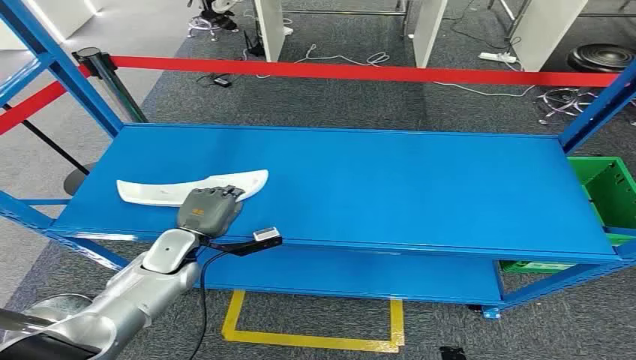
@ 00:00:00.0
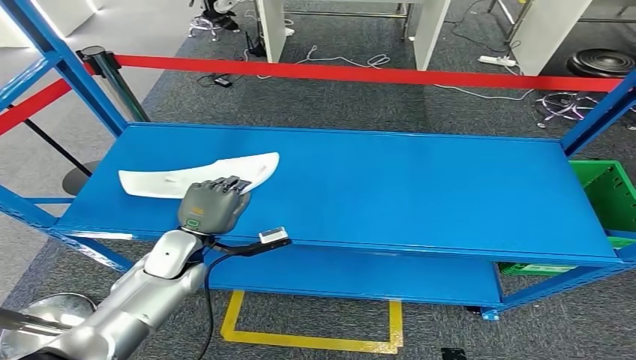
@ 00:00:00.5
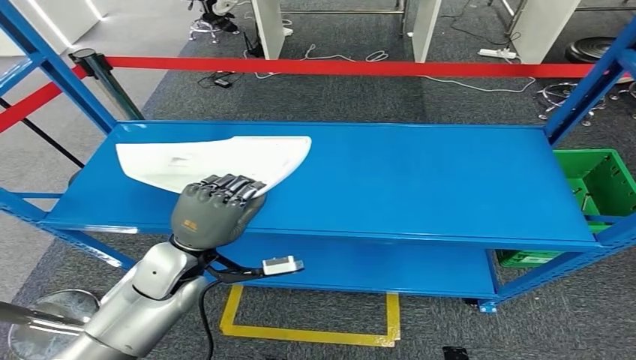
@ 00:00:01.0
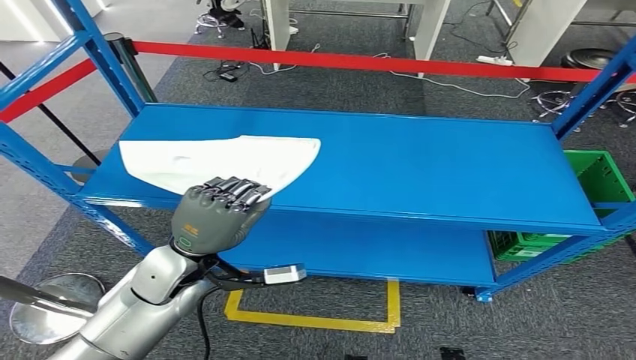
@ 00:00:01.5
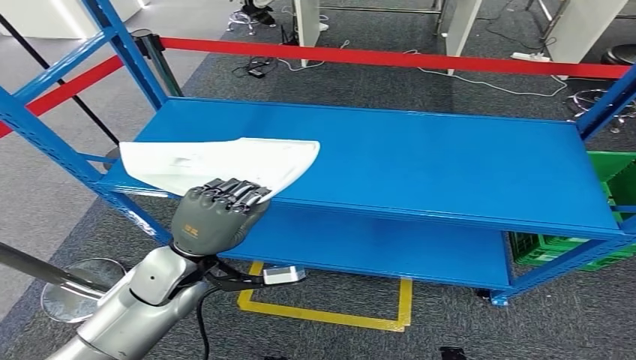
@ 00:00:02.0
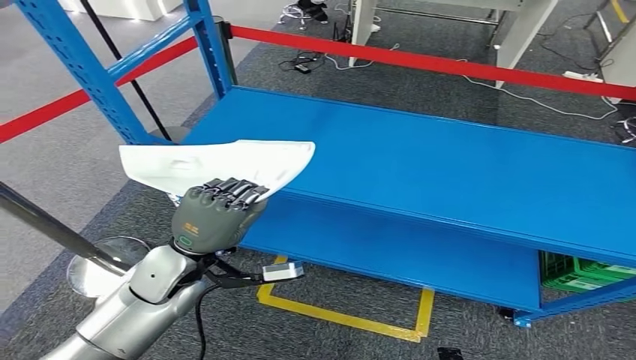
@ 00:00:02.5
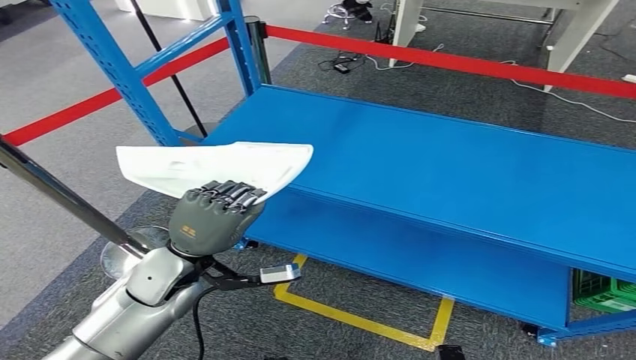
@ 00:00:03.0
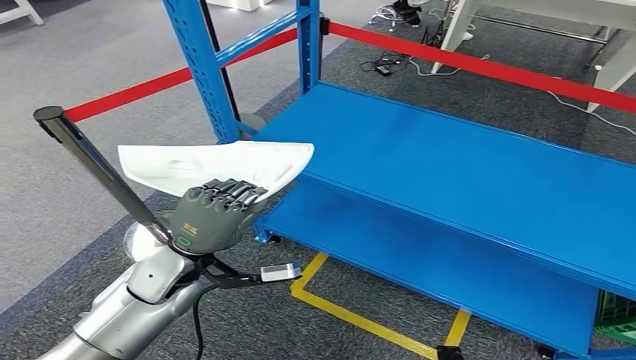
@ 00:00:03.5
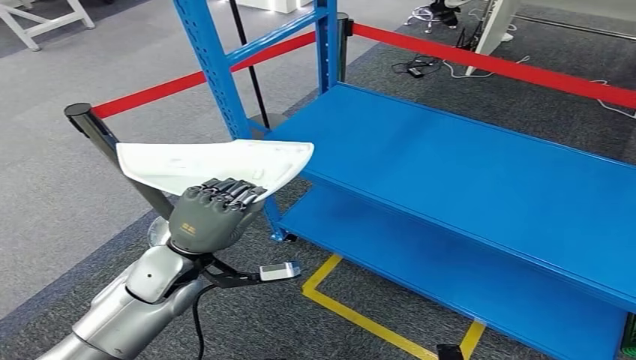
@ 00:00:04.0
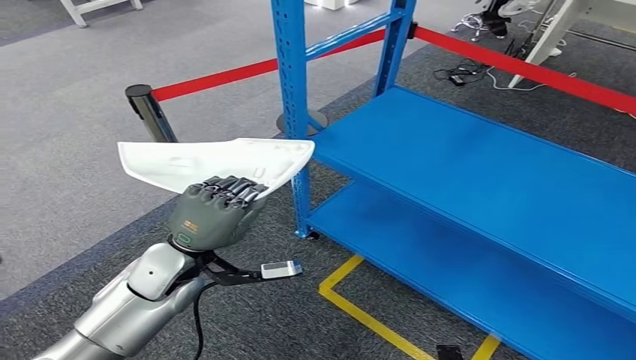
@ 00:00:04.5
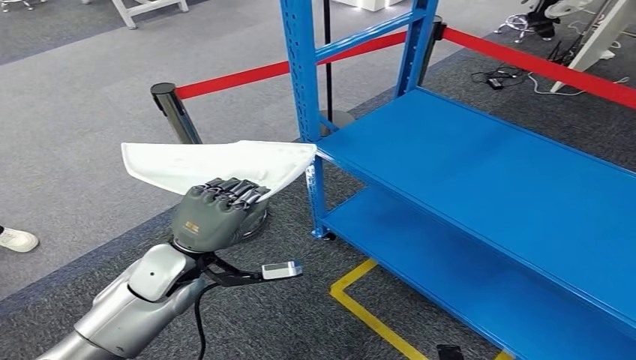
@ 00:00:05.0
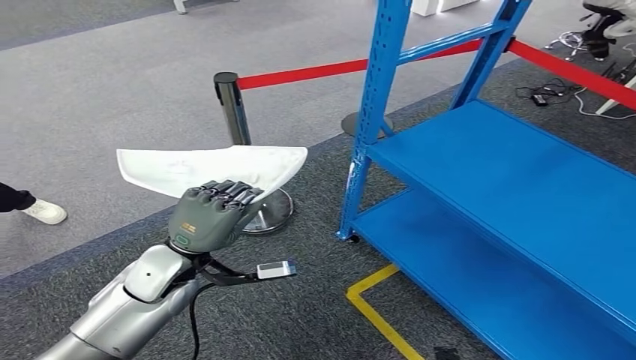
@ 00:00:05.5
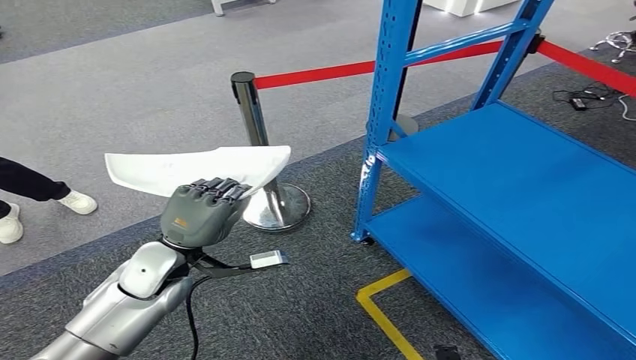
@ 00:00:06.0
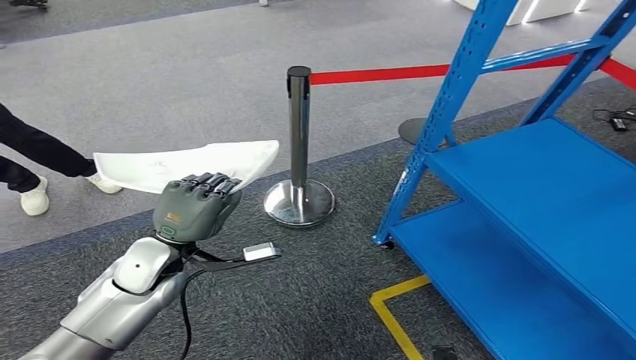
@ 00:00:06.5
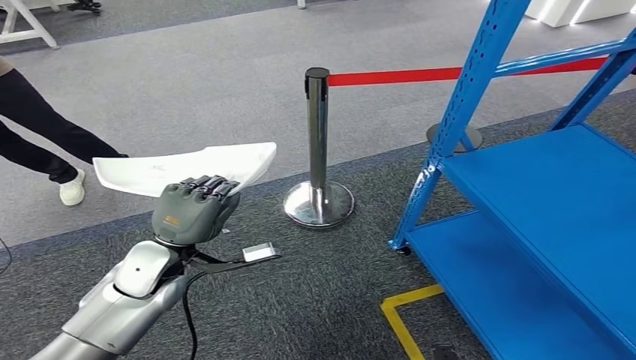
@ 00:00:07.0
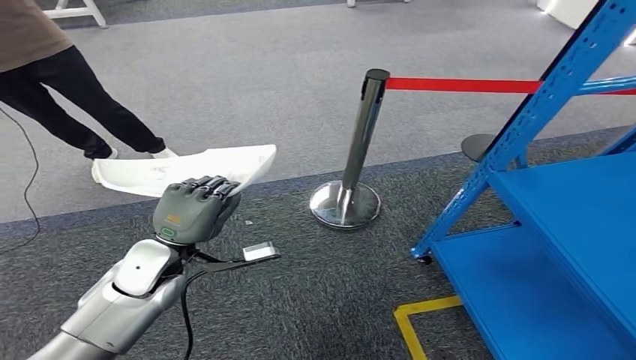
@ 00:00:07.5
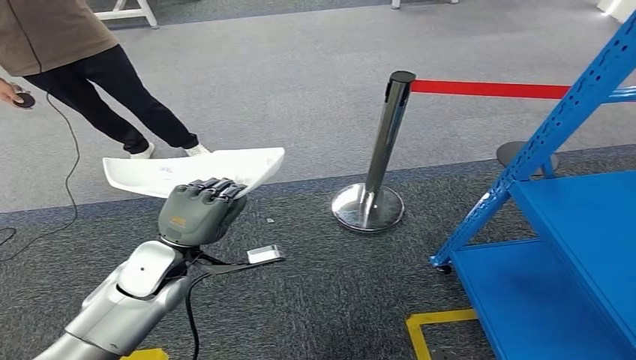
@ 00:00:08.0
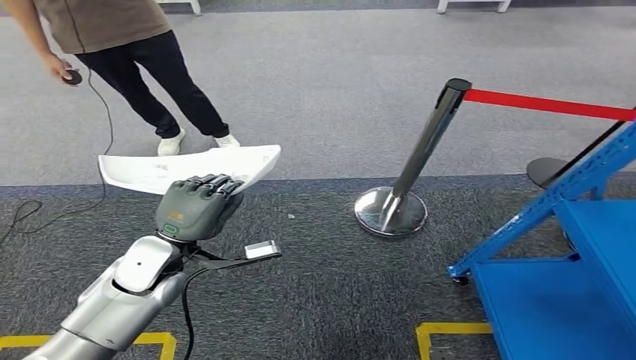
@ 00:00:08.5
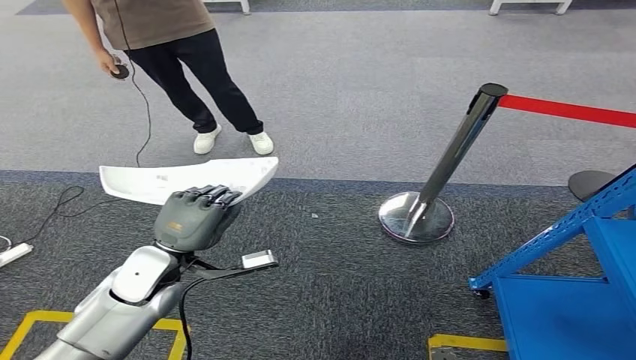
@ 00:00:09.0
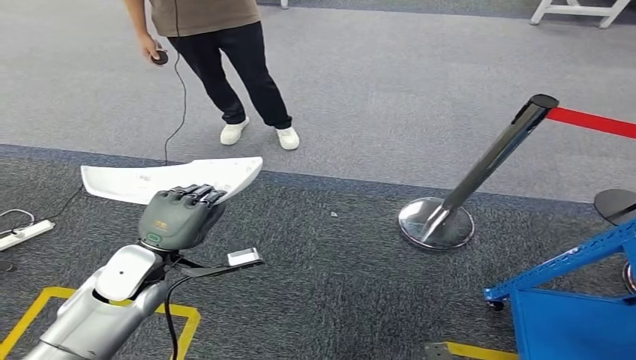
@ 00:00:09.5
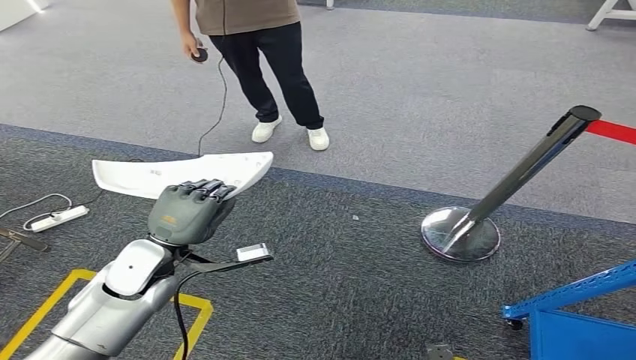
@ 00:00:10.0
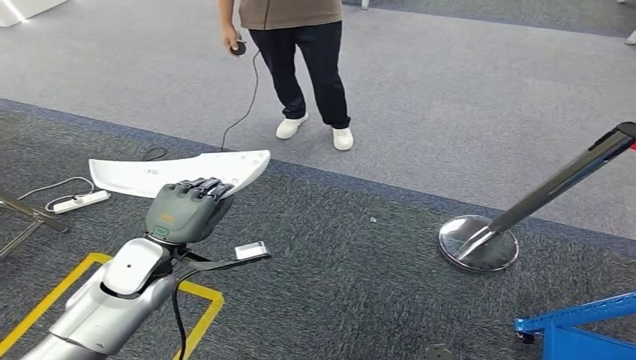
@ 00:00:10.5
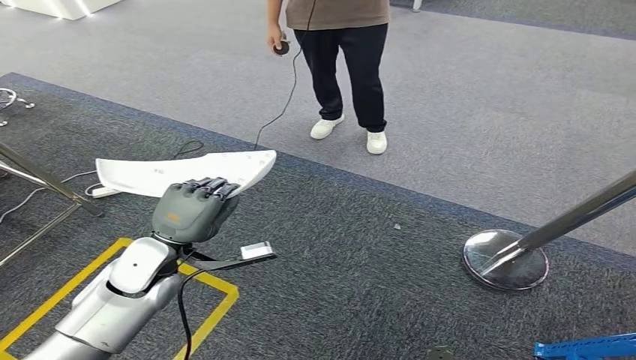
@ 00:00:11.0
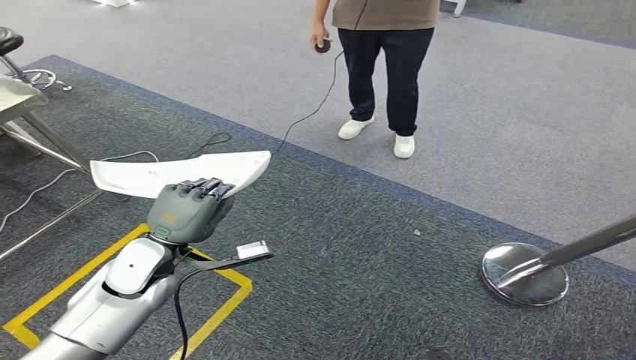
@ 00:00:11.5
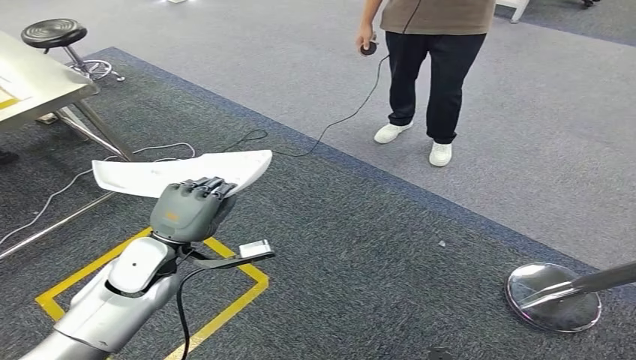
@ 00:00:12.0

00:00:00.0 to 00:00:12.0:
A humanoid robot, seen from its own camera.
Step, 00:00:00.0 to 00:00:04.5: Pick up the small component from the shelf.

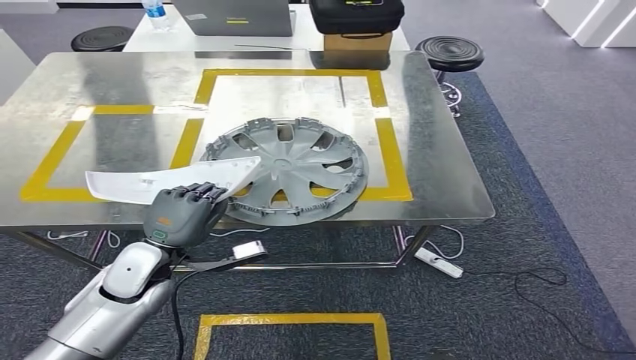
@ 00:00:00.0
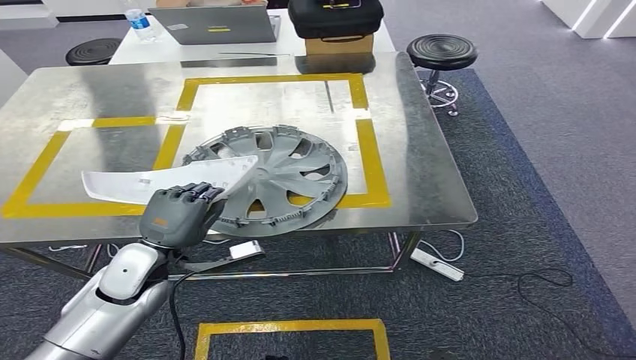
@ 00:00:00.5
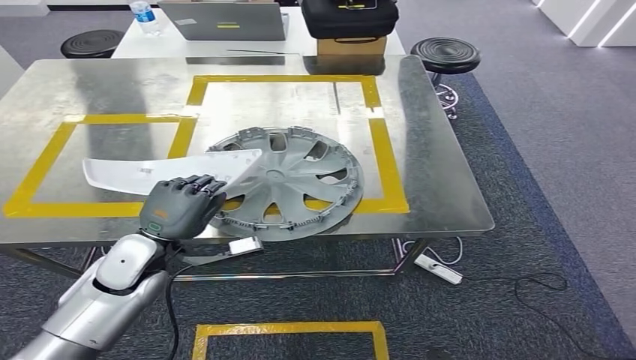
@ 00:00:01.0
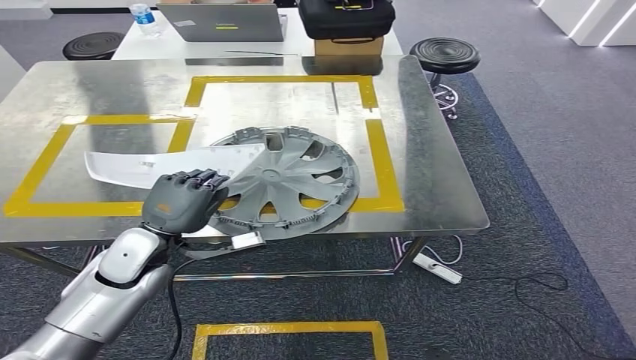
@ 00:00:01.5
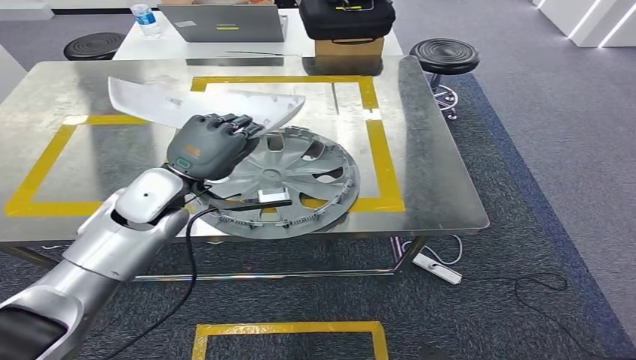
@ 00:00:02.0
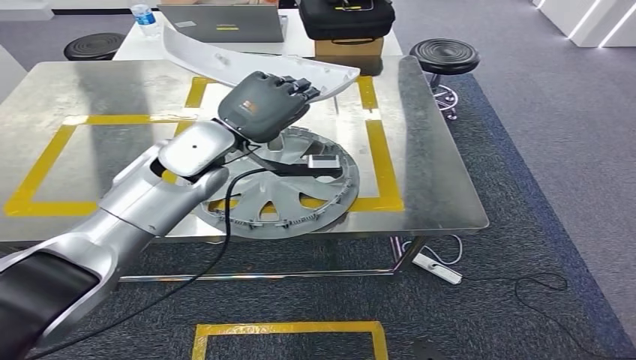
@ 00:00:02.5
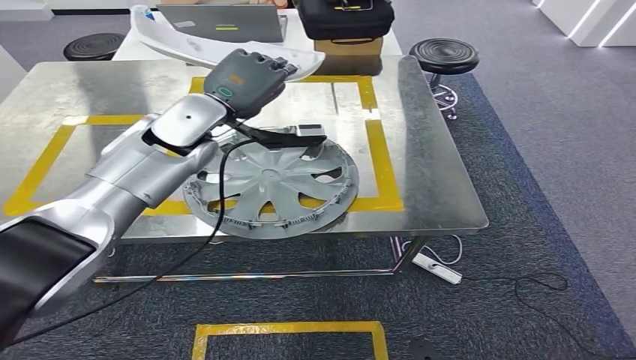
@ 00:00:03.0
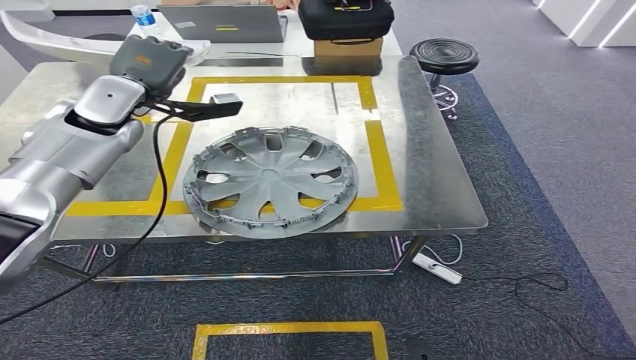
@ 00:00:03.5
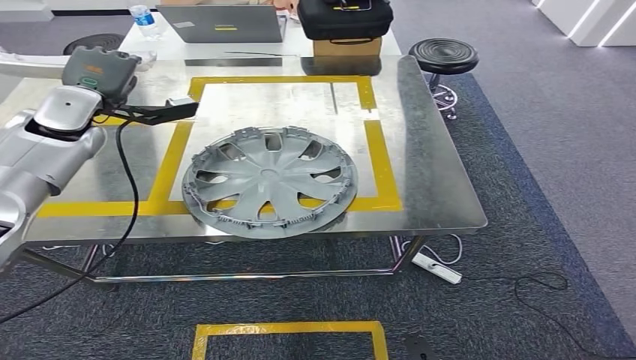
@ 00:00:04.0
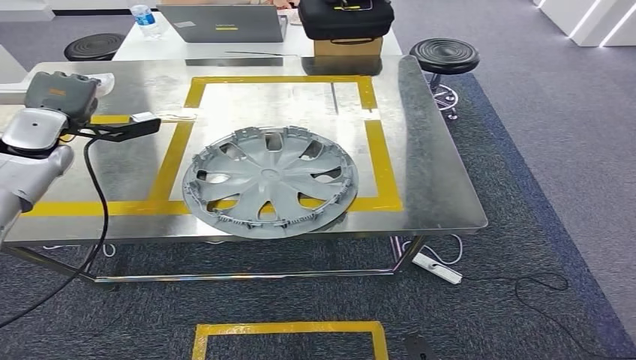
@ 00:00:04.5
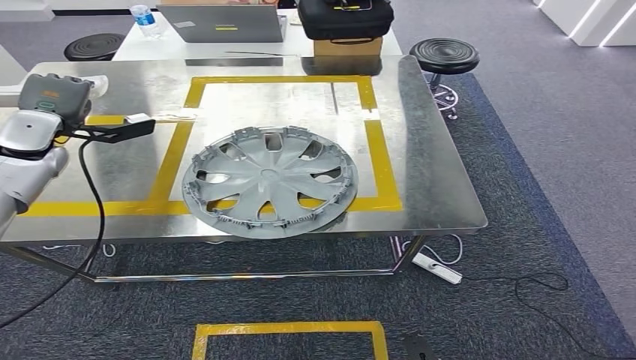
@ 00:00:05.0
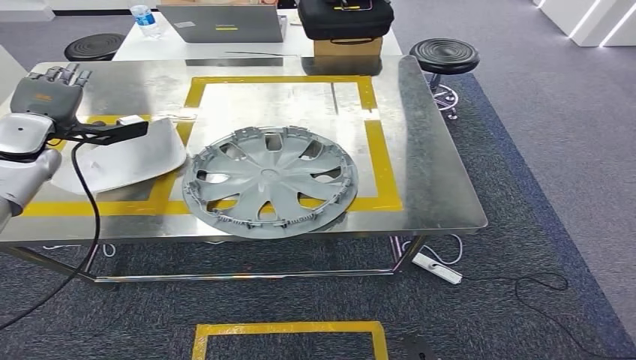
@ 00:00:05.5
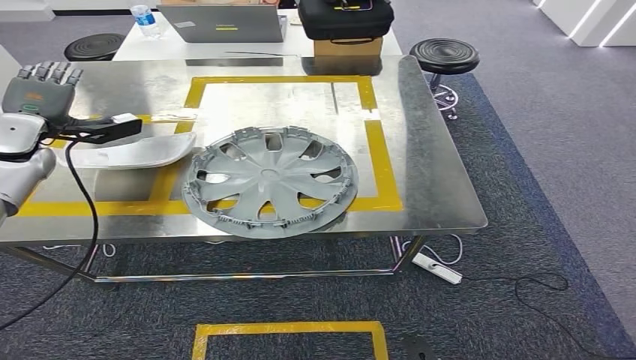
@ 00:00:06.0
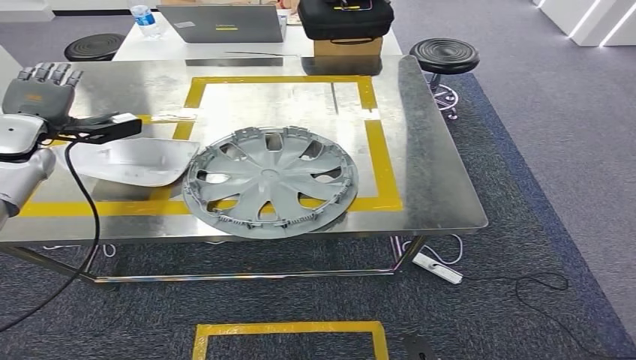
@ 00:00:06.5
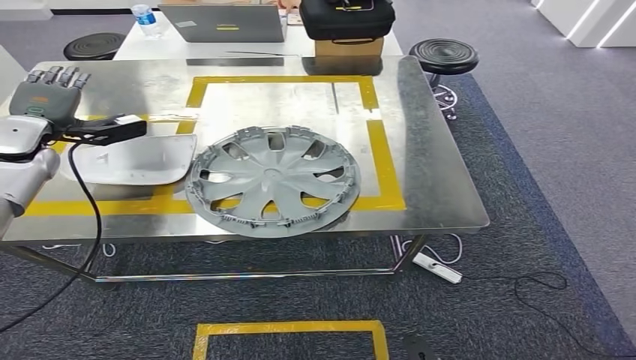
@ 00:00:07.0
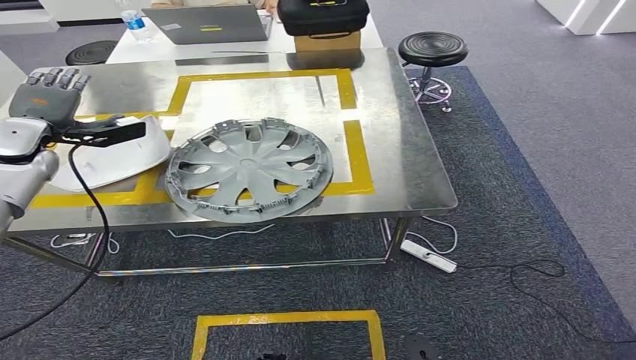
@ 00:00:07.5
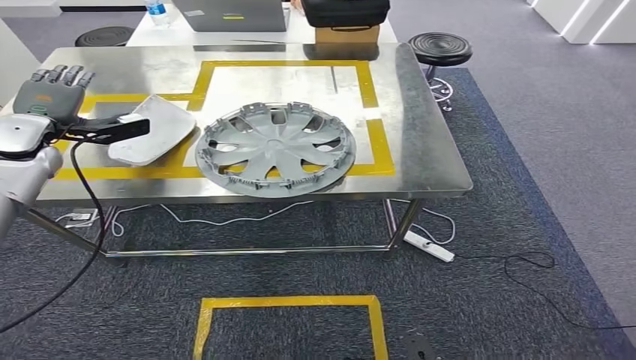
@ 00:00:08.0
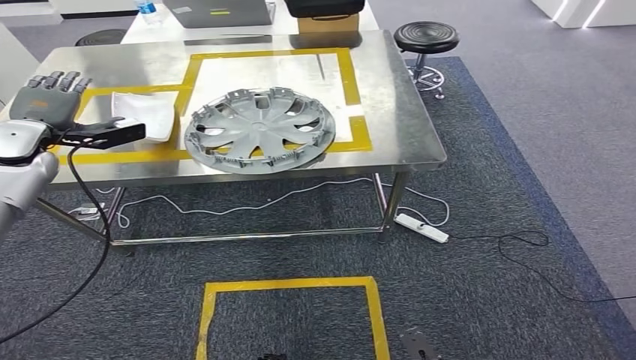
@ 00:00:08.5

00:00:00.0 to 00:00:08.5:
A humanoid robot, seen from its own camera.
Step, 00:00:02.0 to 00:00:08.5: Insert the small component into the corresponding slot on the workbench.
00:00:02.0 to 00:00:04.0: The left hand goes approximately 20 cm to the left, forward and upward.
00:00:04.0 to 00:00:06.5: The left hand heads to the left, covering some 10 cm.
